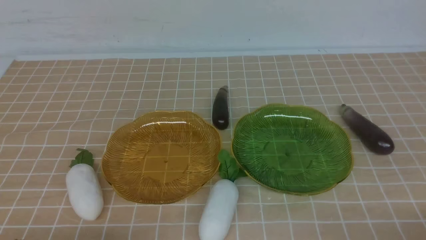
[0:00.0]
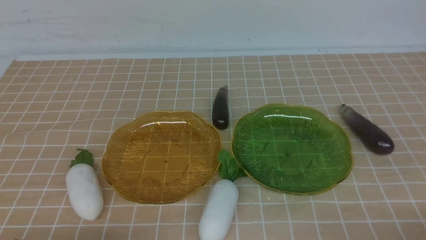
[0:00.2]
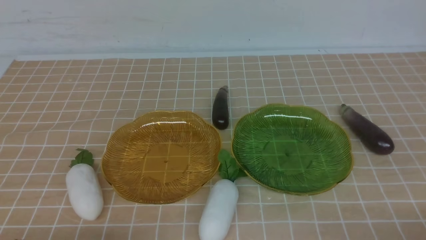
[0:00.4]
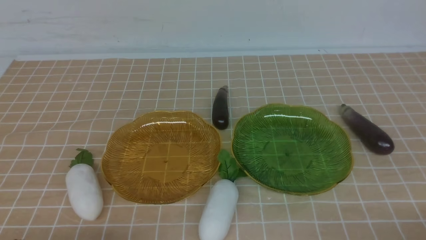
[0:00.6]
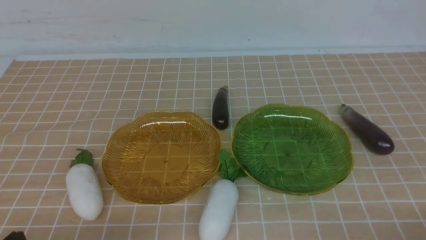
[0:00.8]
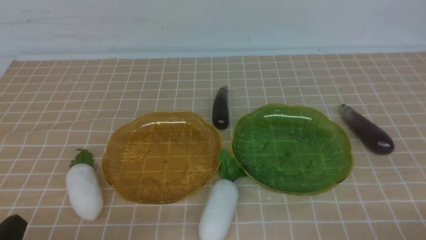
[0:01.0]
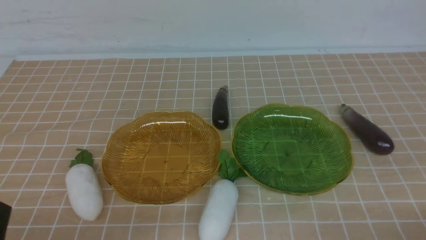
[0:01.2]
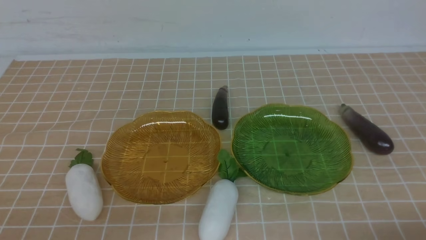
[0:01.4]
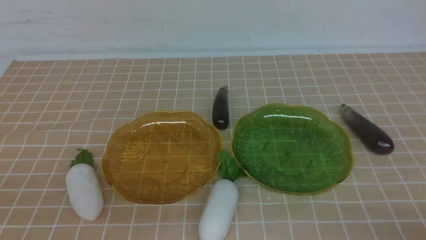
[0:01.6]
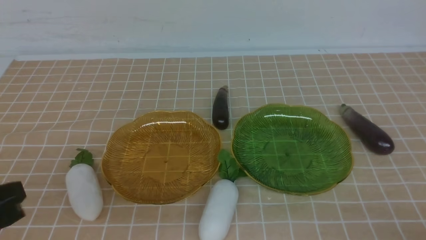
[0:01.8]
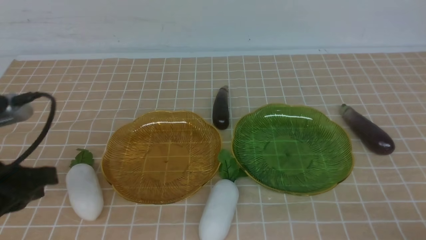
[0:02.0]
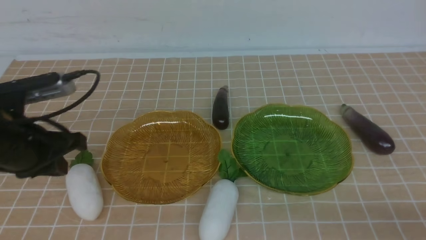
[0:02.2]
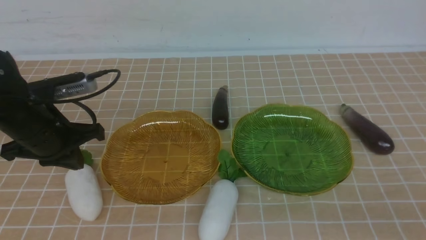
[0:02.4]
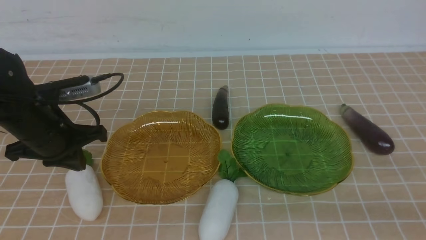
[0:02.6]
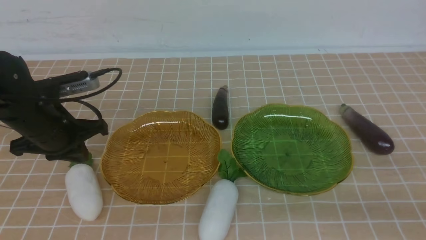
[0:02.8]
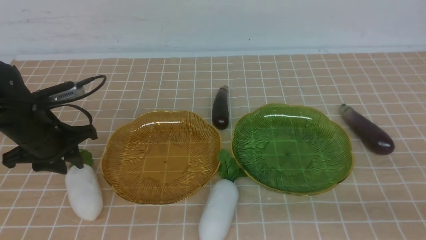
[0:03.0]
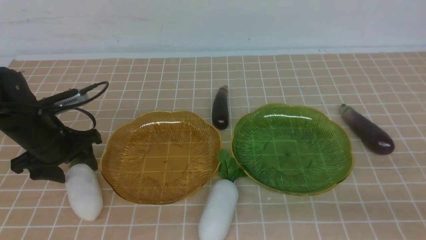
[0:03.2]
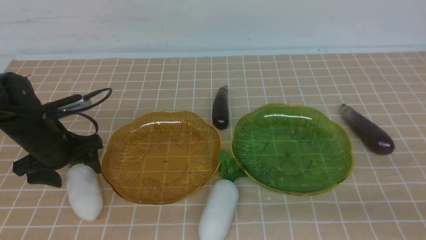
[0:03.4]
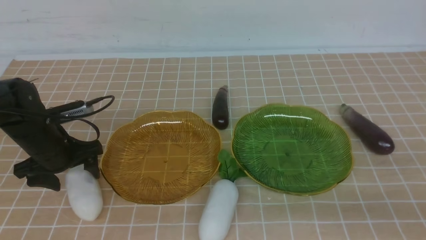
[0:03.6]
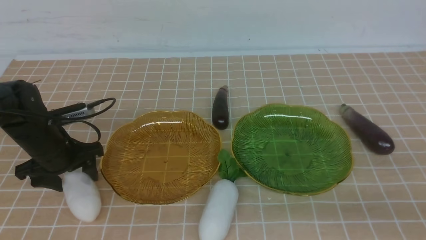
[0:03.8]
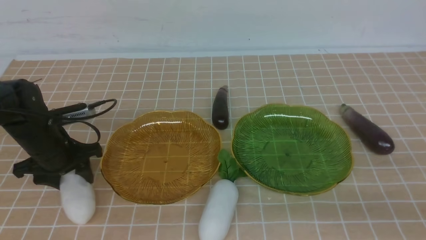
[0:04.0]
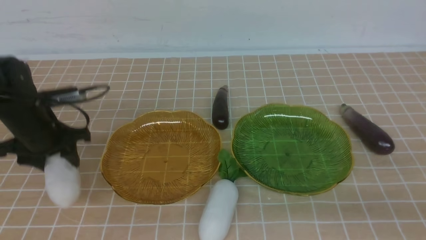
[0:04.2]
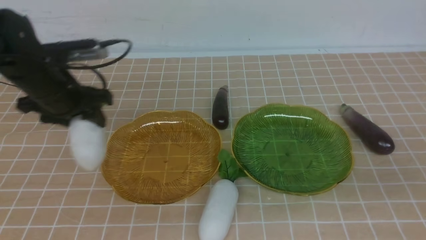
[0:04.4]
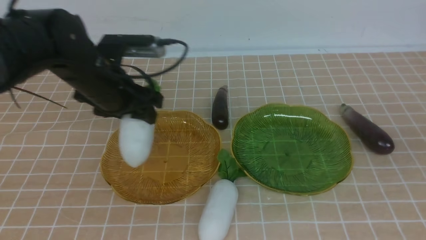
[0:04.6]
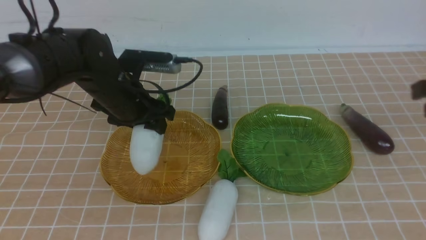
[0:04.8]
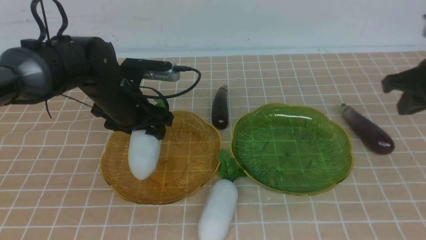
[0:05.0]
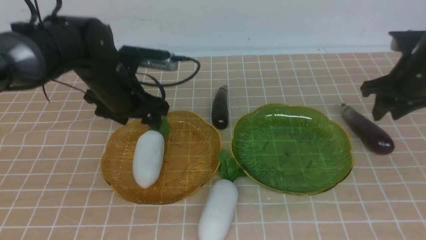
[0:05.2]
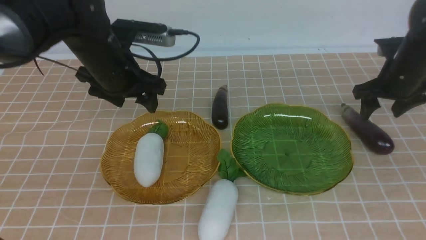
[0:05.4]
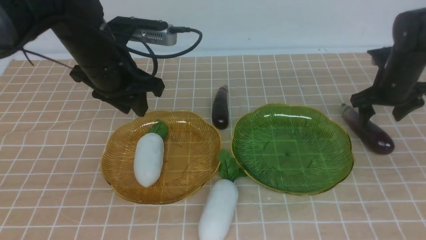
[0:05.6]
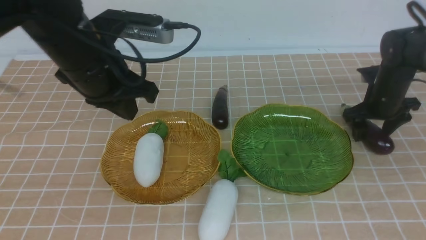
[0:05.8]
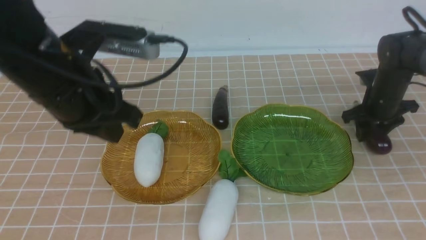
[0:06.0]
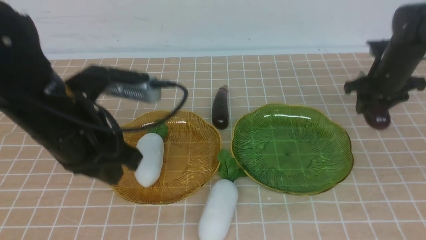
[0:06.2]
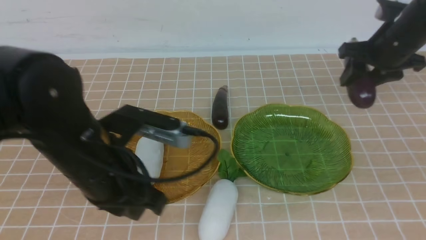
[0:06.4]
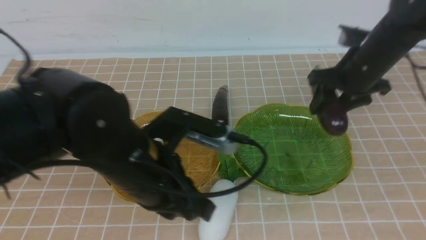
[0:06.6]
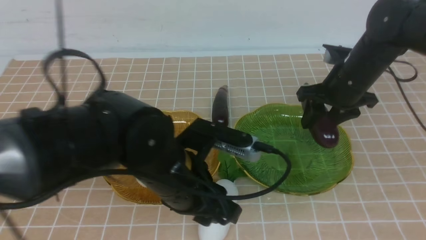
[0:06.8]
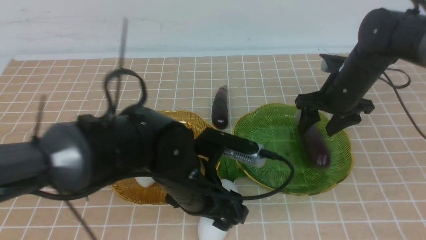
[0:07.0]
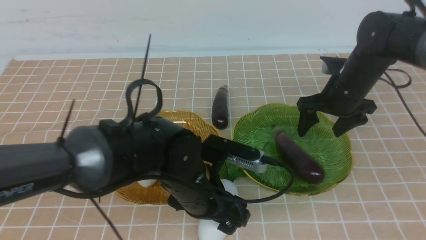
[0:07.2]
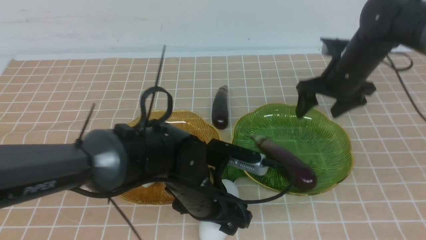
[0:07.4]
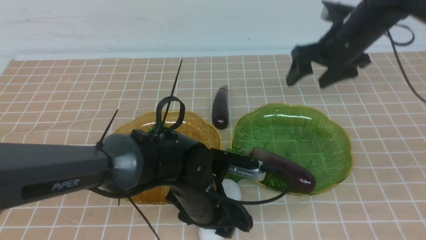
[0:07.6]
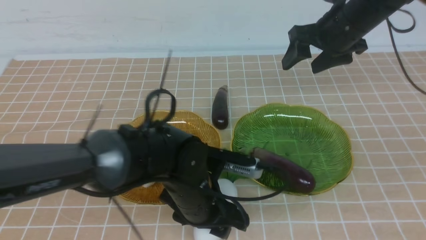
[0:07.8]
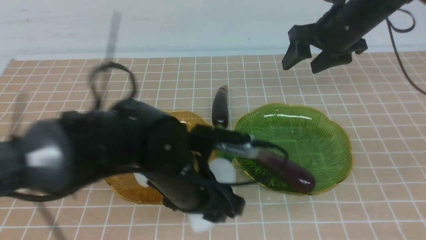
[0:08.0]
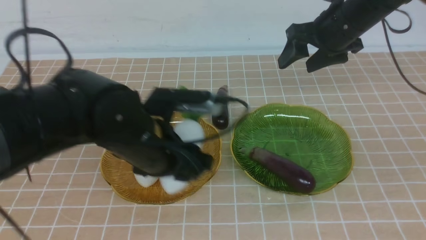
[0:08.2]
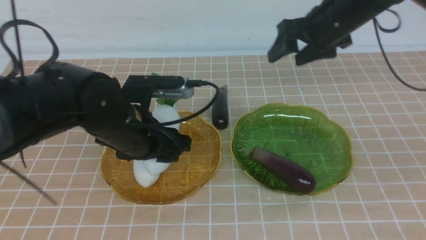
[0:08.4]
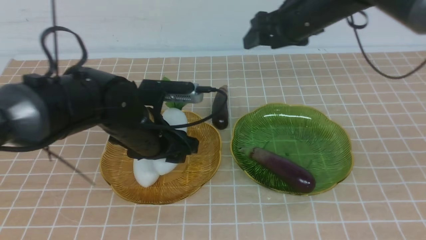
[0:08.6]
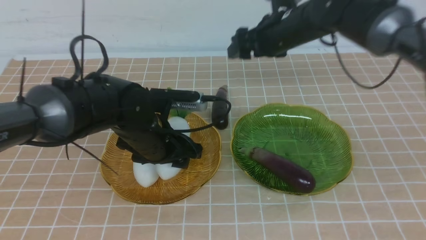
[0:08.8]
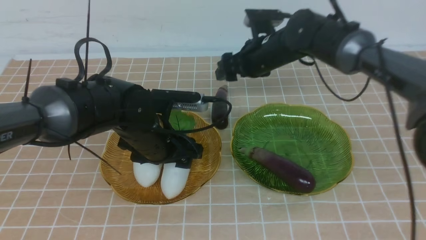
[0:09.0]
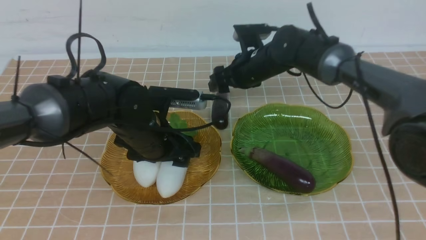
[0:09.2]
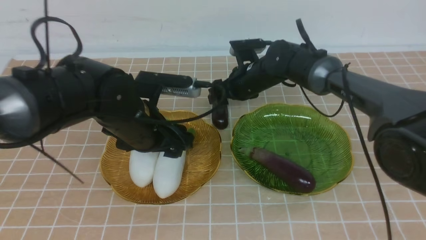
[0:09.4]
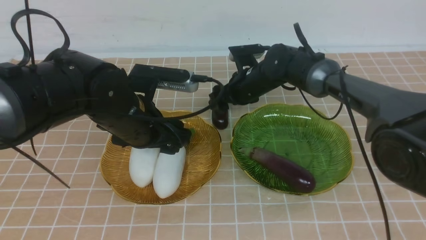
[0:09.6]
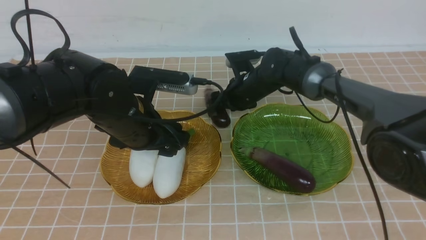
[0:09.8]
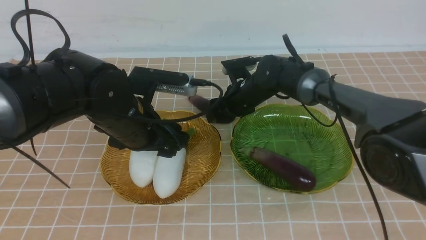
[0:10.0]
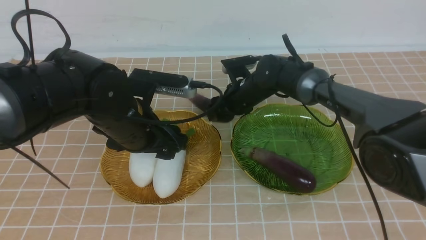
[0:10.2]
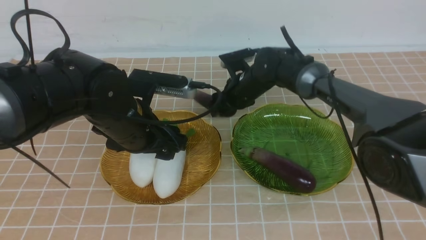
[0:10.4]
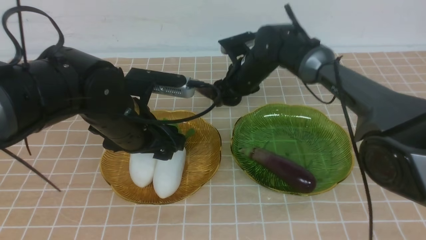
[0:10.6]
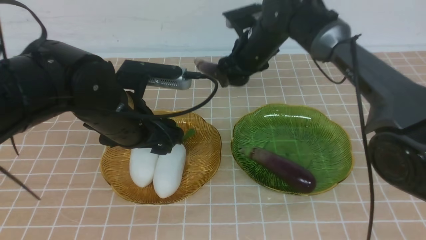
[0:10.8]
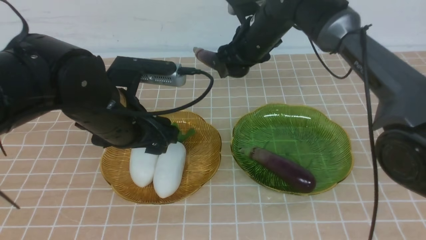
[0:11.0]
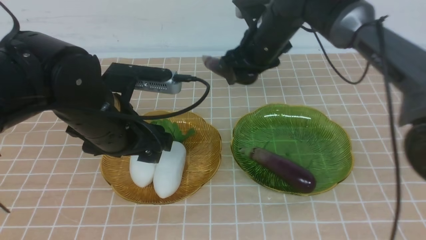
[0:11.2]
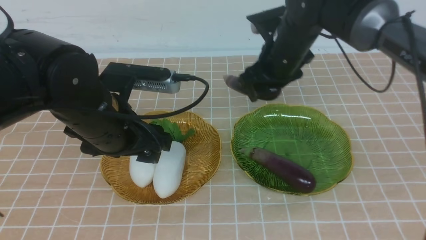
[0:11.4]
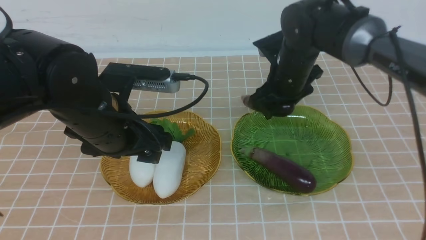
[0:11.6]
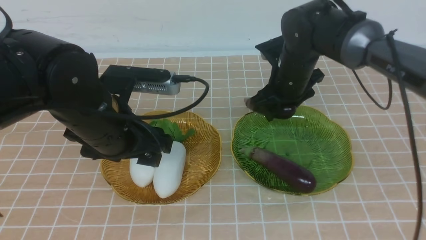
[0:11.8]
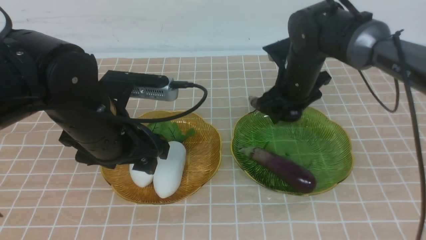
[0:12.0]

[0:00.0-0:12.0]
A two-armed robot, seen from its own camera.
Step, 0:00.0 to 0:05.4: use the left arm to grab a radish and put it into the left plate.
Step, 0:05.6 to 0:07.2: use the right arm to grab an eggplant and put it into the right plate.
Step, 0:07.4 to 0:09.2: use the left arm to grab a radish and put it into the left plate.
0:01.6 to 0:03.0: The left gripper goes roughly 25 cm forward, and opens up.
0:03.0 to 0:04.4: The left gripper travels to the right by roughly 5 cm.
0:04.4 to 0:06.0: The right gripper shifts about 25 cm forward, and opens up. Meanwhile the left gripper shifts roughly 15 cm backward and to the right, and closes.
0:06.0 to 0:07.6: The left gripper travels downward by some 5 cm, and opens. Meanwhile the right gripper goes roughly 10 cm to the left and upward.
0:07.6 to 0:09.0: The left gripper shifts by some 5 cm, while the right gripper heads downward and to the left, covering some 20 cm.
0:09.0 to 0:10.4: The right gripper heads upward, covering about 15 cm.
0:10.4 to 0:12.0: The right gripper travels to the right and backward by about 10 cm. Meanwhile the left gripper closes up.

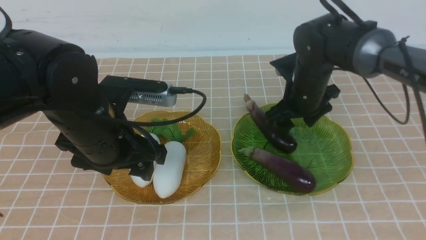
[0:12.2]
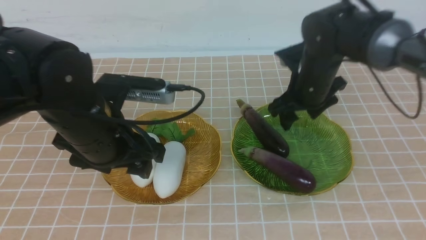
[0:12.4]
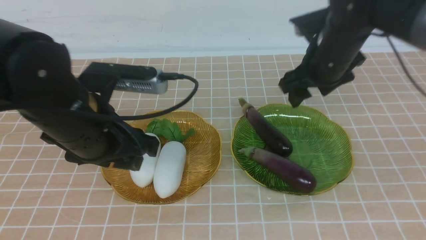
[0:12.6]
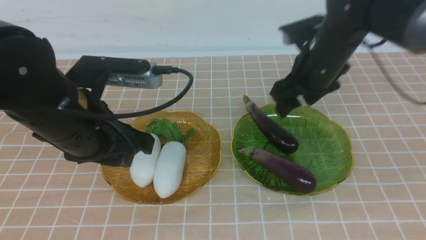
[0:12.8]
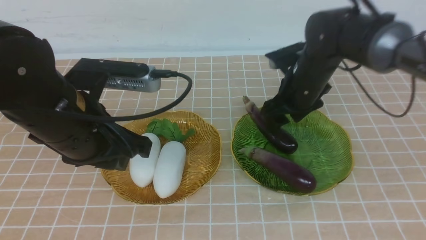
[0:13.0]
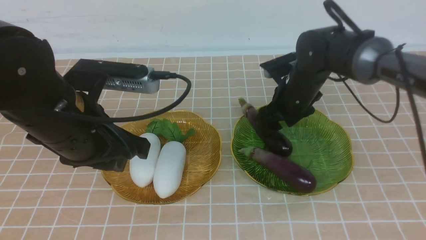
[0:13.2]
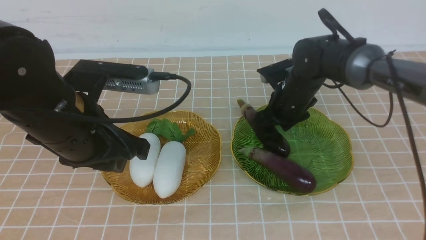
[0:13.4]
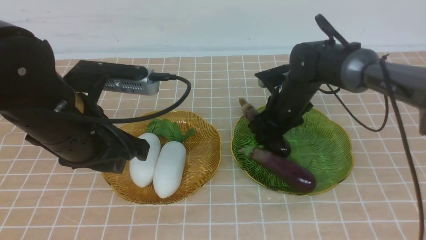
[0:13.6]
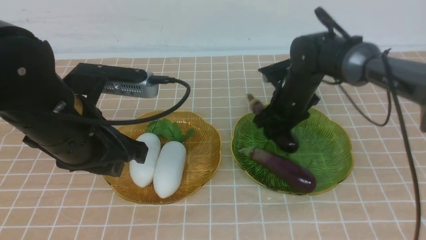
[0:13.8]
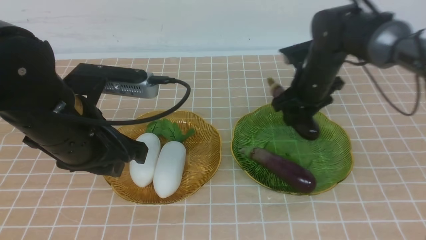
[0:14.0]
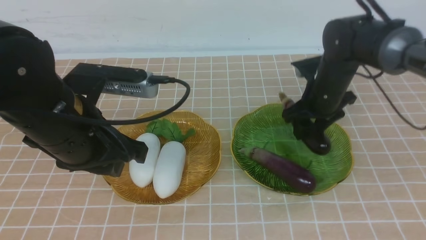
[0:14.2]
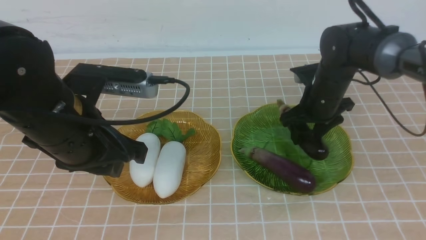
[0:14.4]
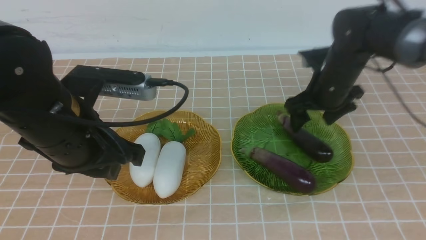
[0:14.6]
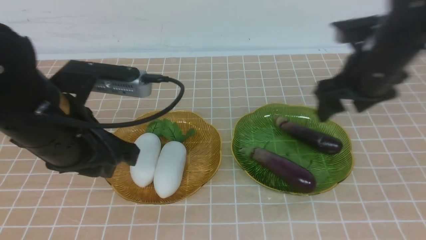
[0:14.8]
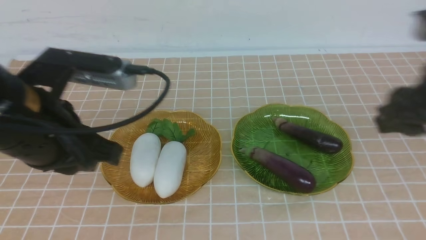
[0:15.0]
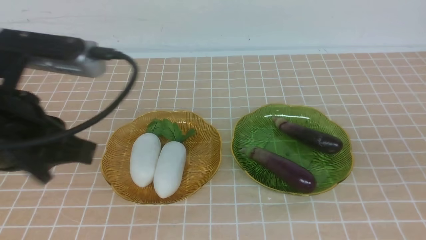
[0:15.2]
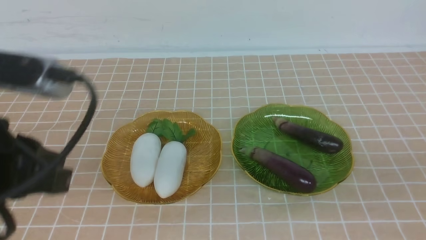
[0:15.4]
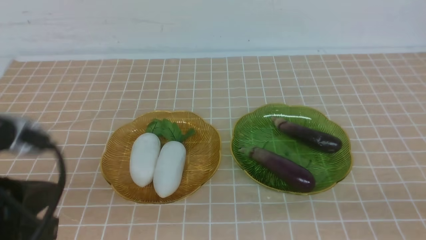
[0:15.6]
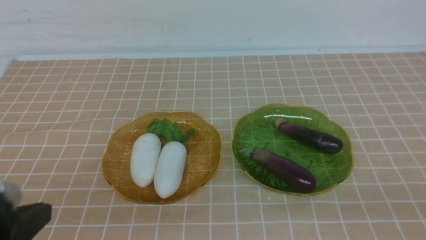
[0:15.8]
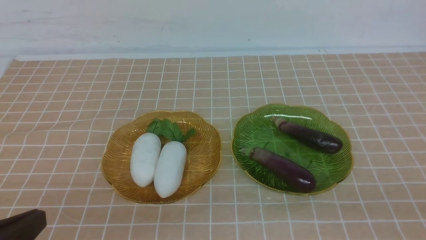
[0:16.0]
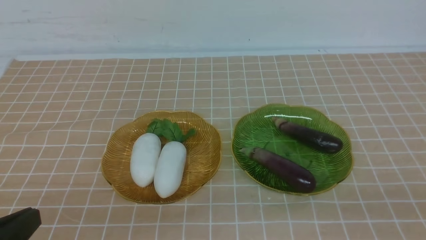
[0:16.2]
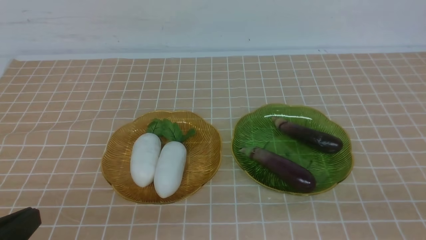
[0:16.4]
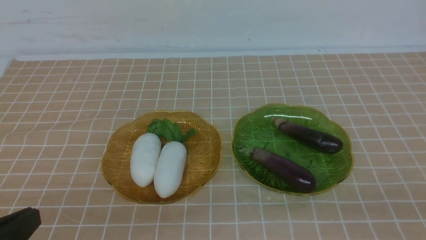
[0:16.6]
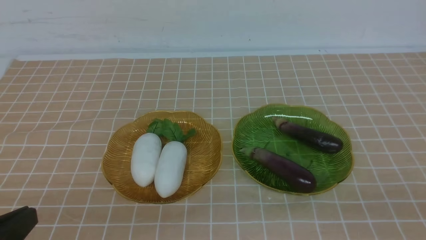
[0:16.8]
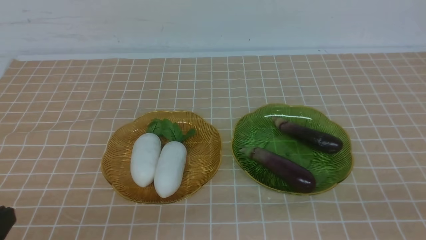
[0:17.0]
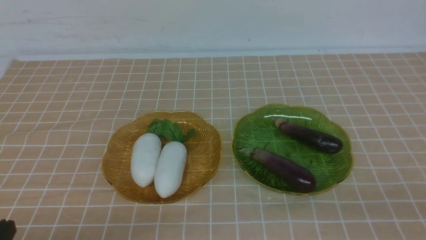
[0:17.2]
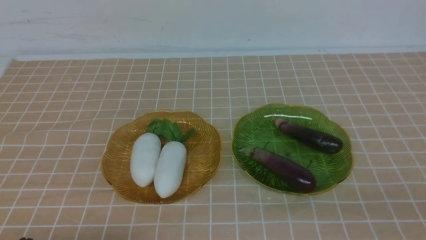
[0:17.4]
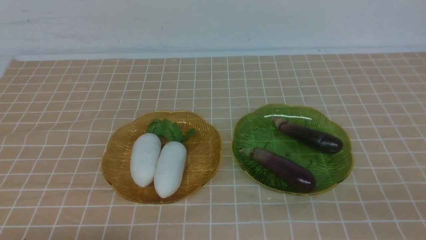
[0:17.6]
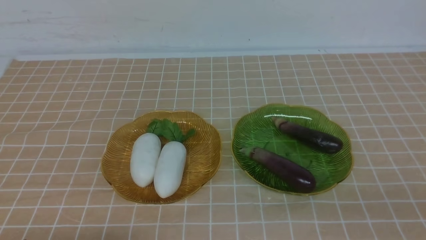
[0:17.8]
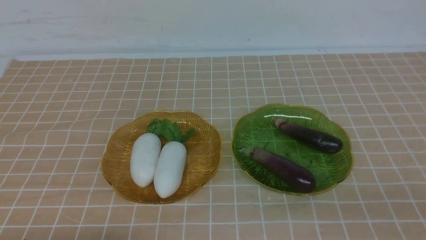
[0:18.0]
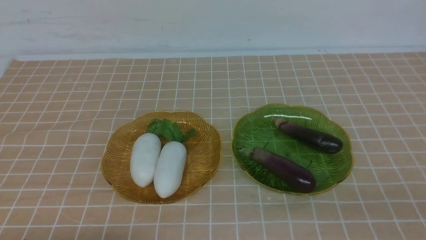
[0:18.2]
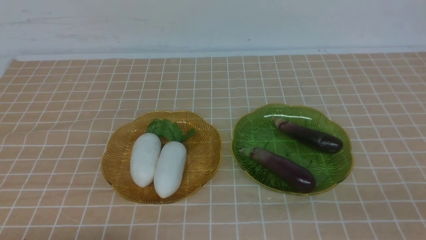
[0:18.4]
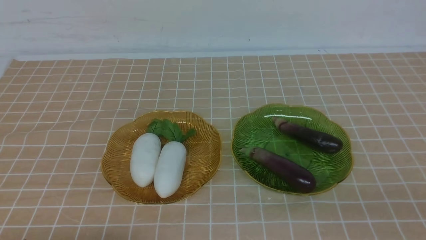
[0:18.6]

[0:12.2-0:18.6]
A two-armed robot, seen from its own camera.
0:12.2 to 0:13.8: There are only small adjustments of the grippers.
0:13.8 to 0:15.4: The right gripper goes roughly 40 cm backward, and closes, while the left gripper is displaced backward and to the left by about 20 cm.
0:15.4 to 0:17.0: The left gripper is displaced downward by roughly 10 cm.
